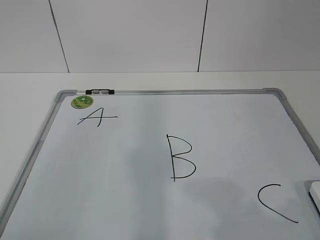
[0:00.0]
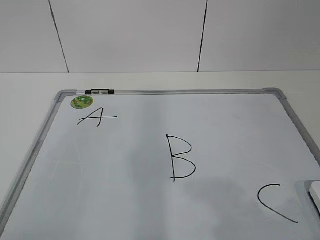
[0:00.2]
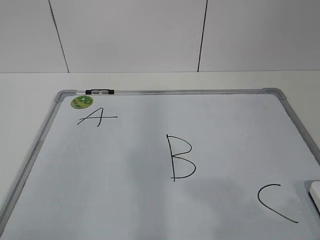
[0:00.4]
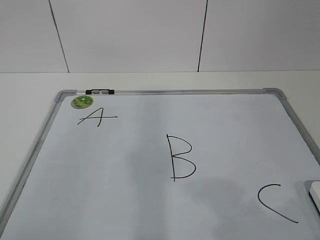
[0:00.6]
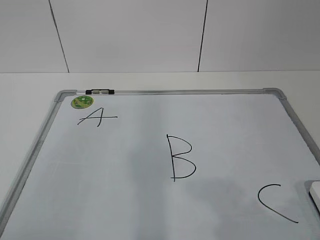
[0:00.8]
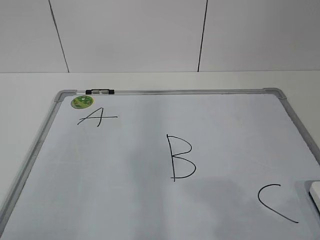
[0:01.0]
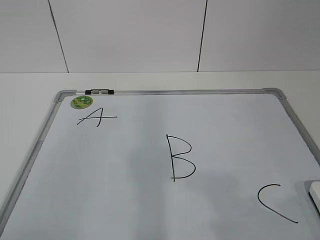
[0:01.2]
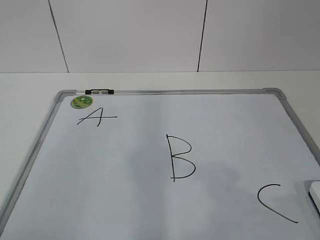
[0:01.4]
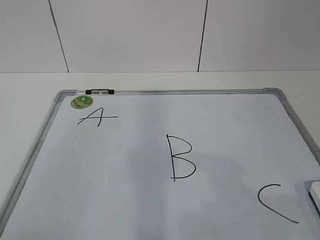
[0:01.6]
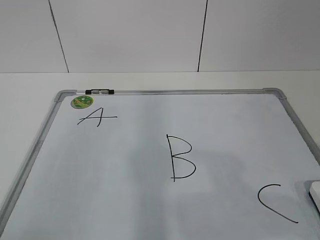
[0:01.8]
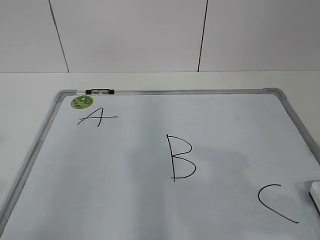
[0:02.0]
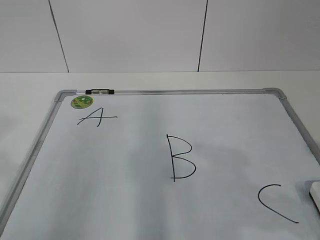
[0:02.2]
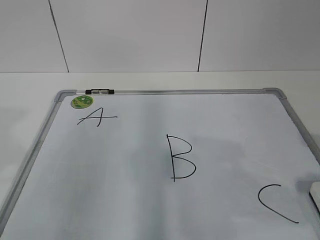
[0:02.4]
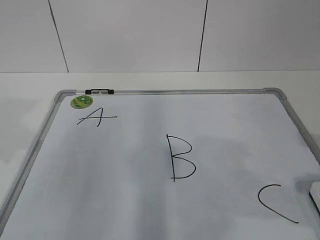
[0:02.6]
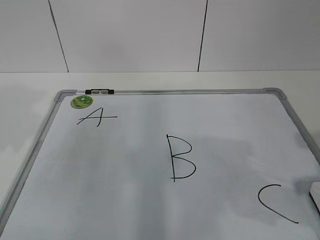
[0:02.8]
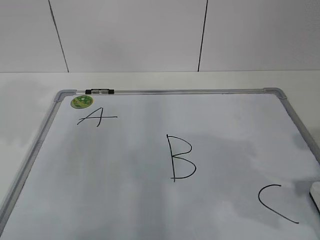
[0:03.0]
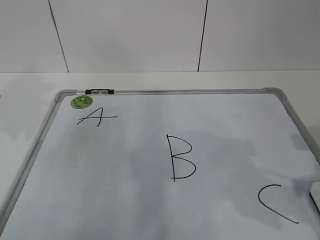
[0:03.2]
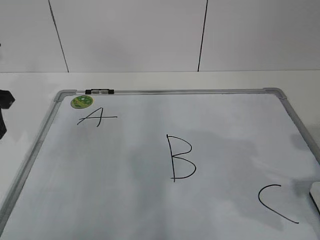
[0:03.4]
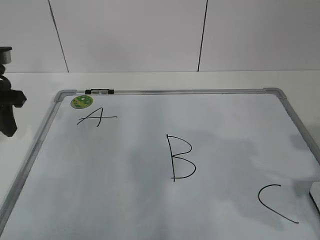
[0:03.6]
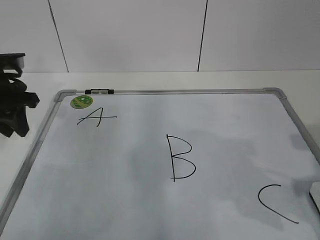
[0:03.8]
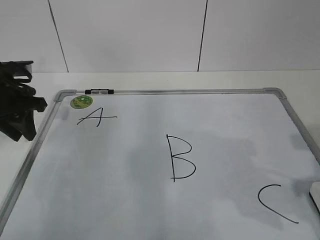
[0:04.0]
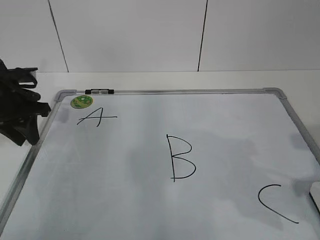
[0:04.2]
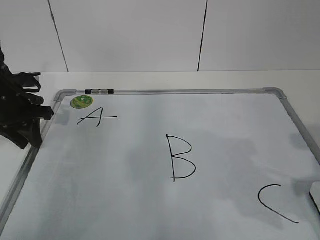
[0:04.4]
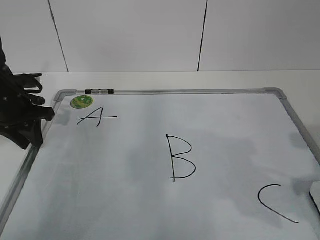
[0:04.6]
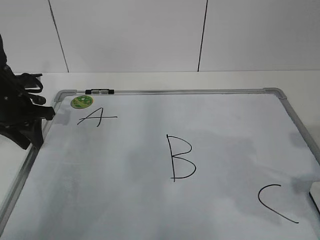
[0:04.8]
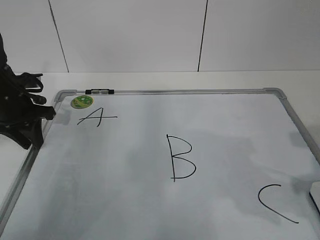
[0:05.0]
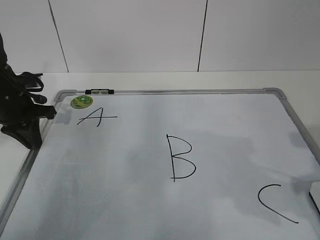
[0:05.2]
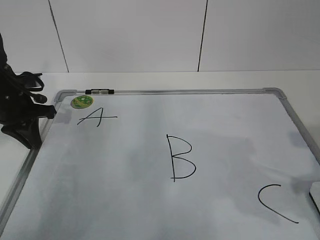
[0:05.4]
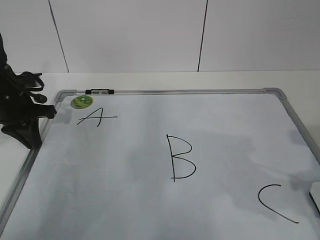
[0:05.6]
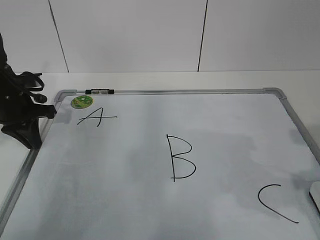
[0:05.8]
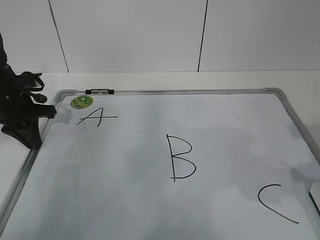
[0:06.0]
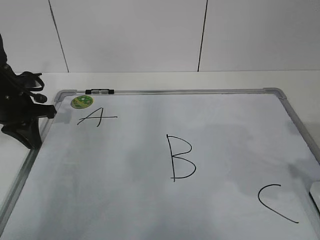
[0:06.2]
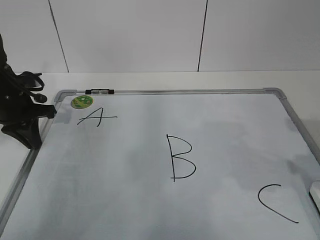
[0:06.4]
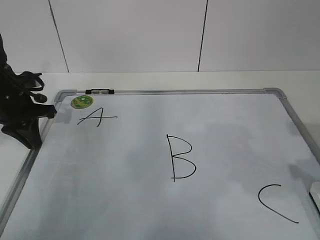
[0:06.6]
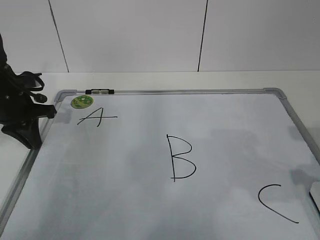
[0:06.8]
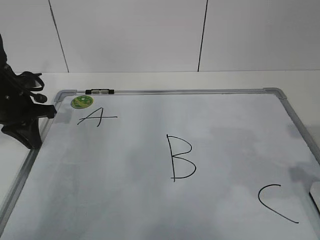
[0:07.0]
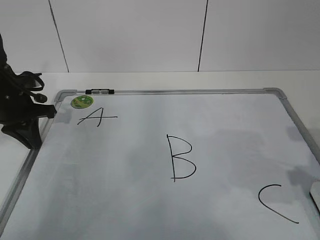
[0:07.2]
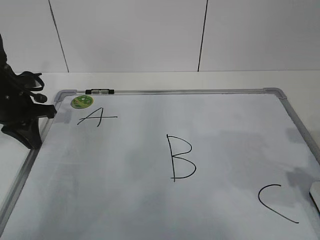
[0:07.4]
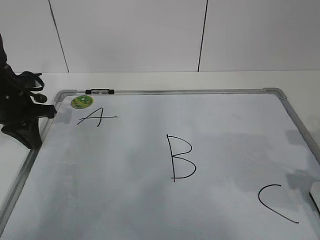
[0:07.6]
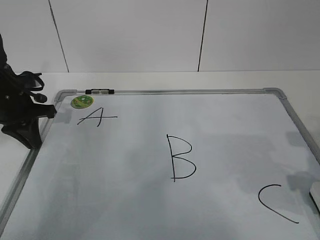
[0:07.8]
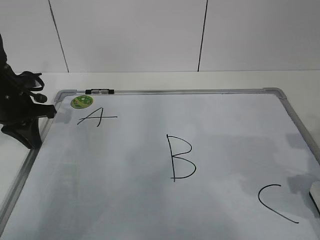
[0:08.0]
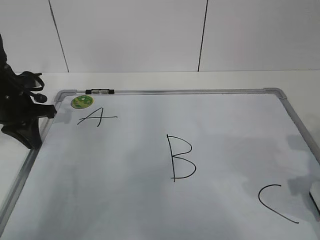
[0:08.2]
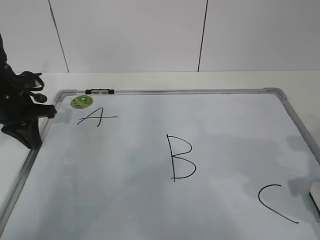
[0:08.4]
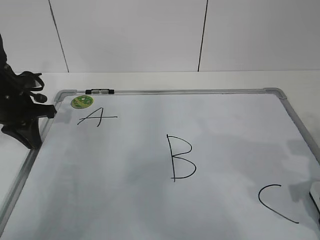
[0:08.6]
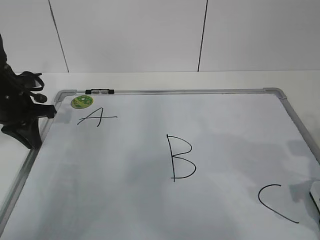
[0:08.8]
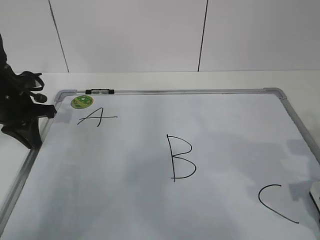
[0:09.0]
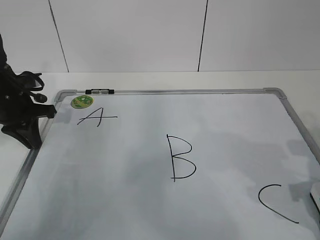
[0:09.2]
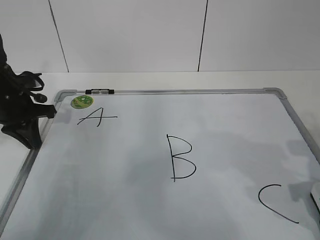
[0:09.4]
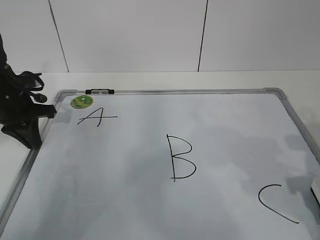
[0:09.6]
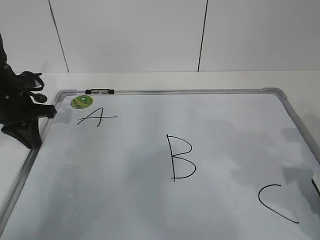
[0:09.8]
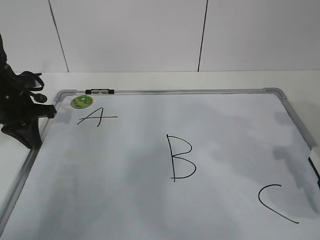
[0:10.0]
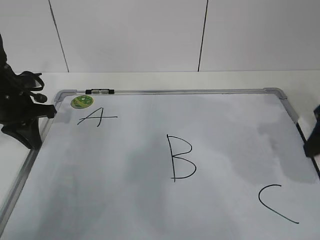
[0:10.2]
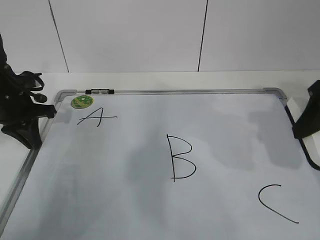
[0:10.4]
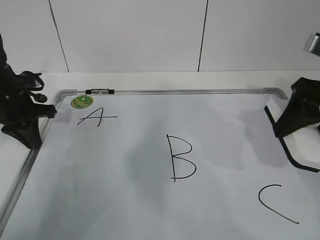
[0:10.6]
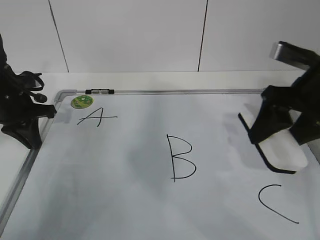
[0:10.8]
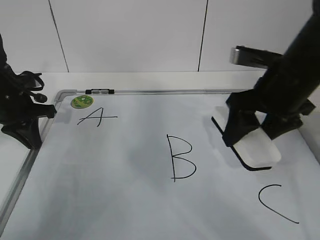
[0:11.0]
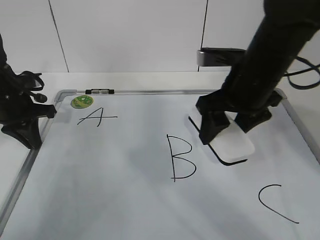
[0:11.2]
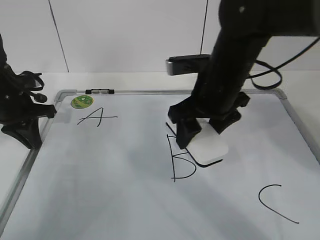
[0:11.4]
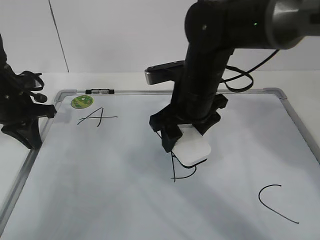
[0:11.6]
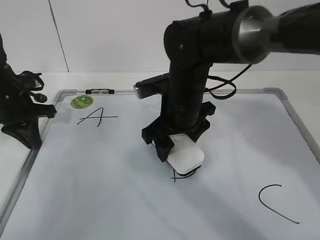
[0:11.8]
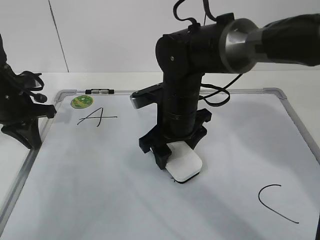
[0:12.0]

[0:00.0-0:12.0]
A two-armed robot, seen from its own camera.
Task of the whole recording: pick up the eraser on the blackboard and erase the letter "B".
Step, 0:00.0 to 0:04.2: Hold the drawing board steady with your left hand.
0:01.6 to 0:03.0: The left gripper heads forward, covering about 25 cm, while the right gripper travels forward by roughly 10 cm.
0:03.0 to 0:04.4: The left gripper goes some 20 cm forward and downward.
0:04.4 to 0:06.0: The left gripper closes up.
0:07.6 to 0:09.0: The grippers move only a little.
0:09.0 to 0:10.4: The right gripper is displaced upward and forward by some 15 cm.
0:10.4 to 0:12.0: The right gripper is displaced to the left and downward by roughly 25 cm.

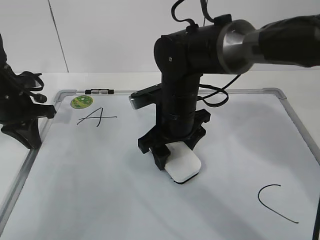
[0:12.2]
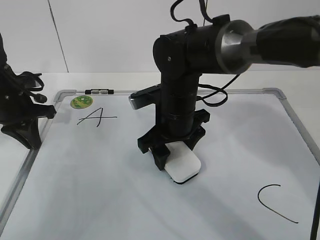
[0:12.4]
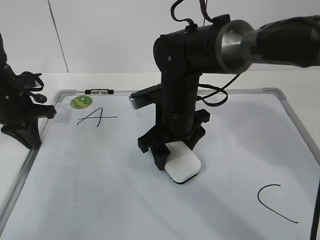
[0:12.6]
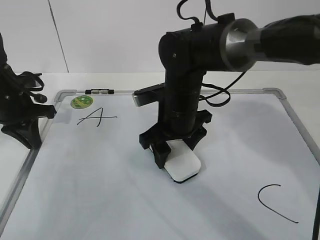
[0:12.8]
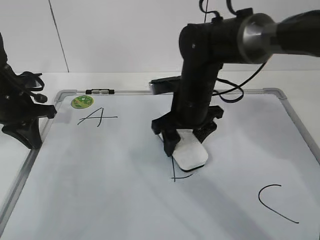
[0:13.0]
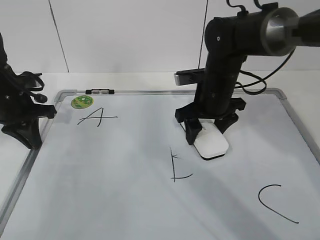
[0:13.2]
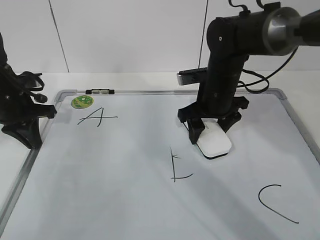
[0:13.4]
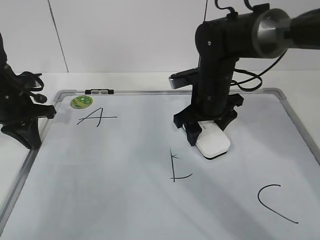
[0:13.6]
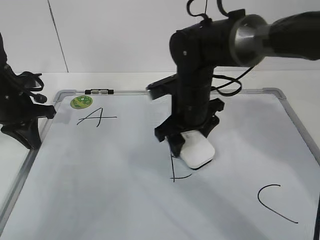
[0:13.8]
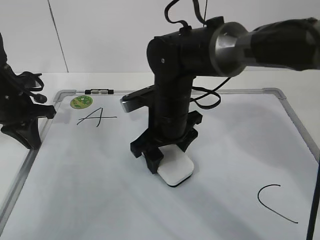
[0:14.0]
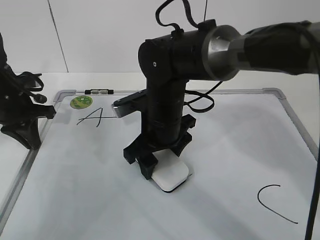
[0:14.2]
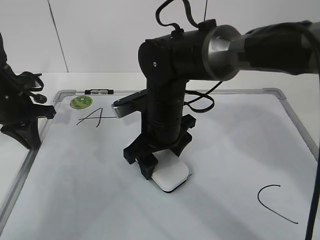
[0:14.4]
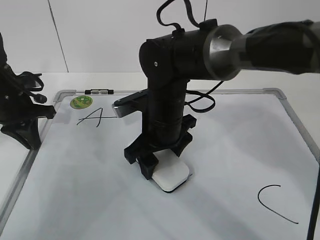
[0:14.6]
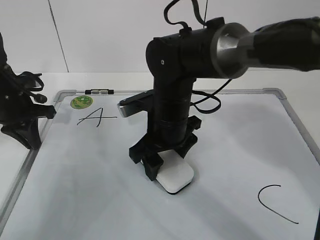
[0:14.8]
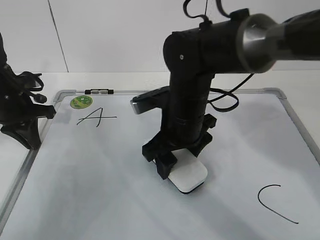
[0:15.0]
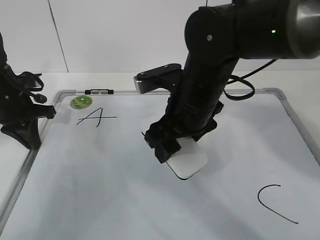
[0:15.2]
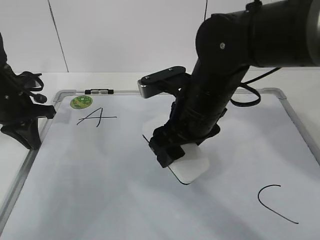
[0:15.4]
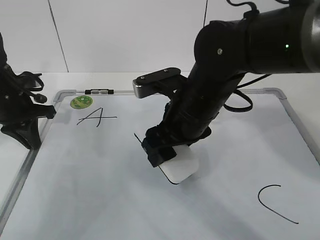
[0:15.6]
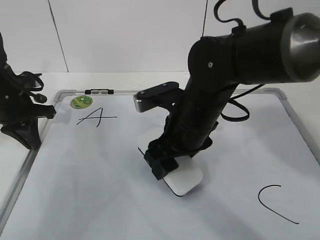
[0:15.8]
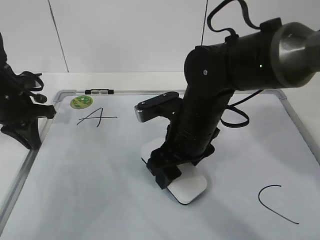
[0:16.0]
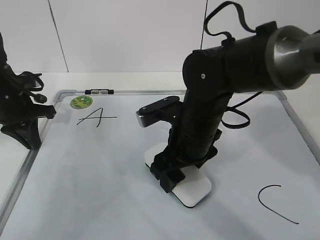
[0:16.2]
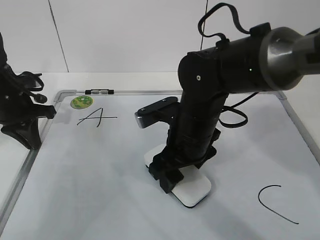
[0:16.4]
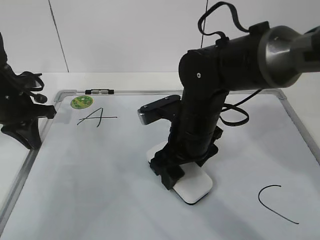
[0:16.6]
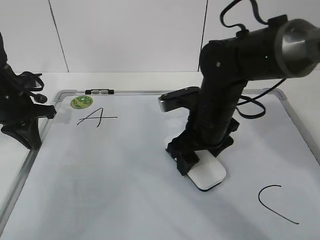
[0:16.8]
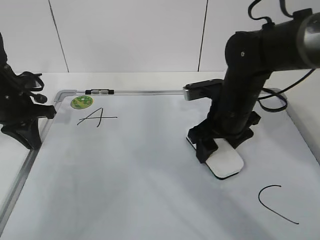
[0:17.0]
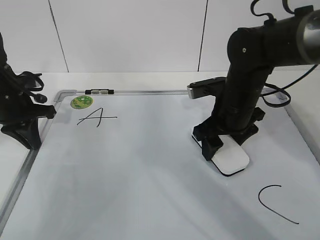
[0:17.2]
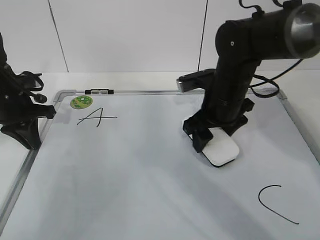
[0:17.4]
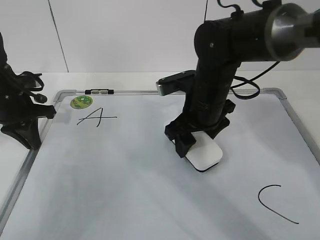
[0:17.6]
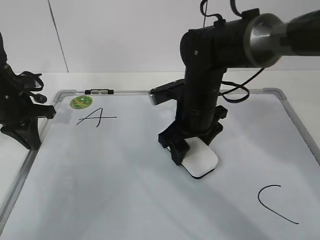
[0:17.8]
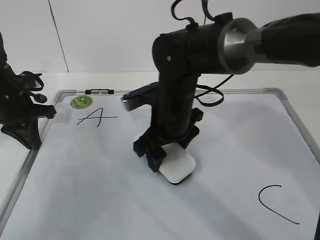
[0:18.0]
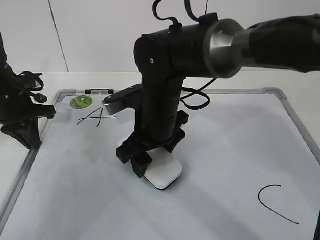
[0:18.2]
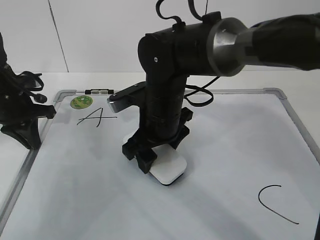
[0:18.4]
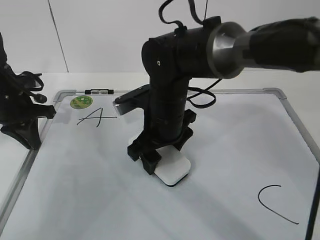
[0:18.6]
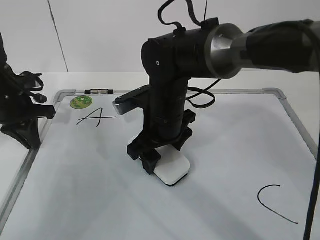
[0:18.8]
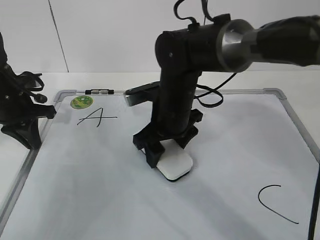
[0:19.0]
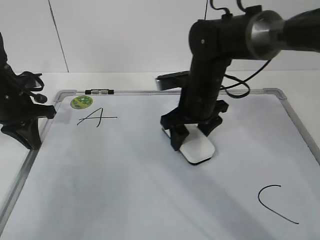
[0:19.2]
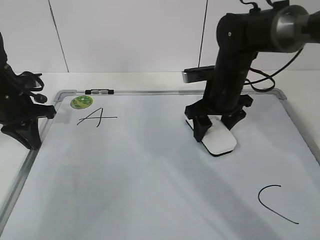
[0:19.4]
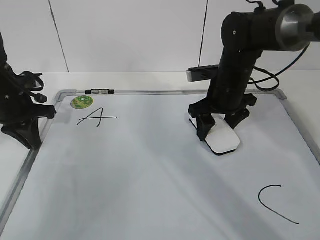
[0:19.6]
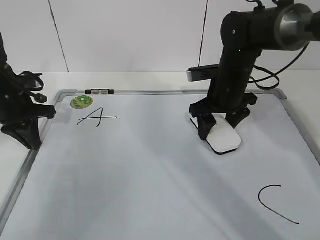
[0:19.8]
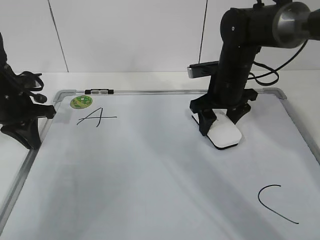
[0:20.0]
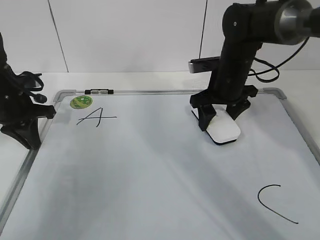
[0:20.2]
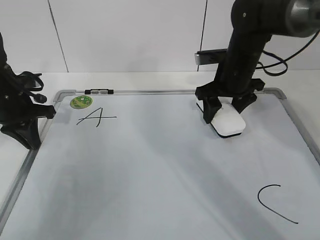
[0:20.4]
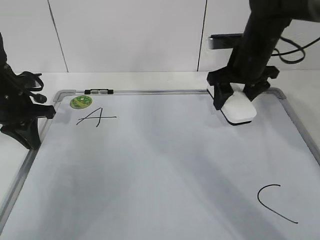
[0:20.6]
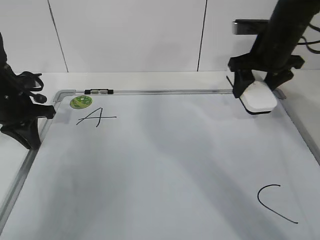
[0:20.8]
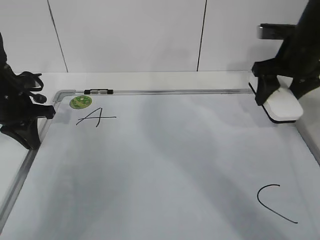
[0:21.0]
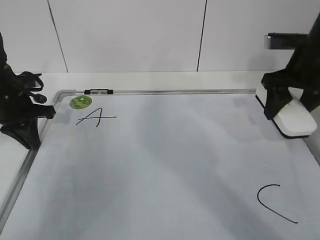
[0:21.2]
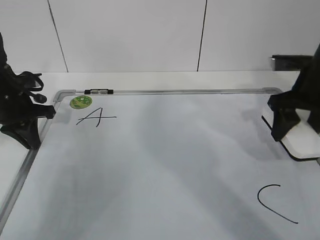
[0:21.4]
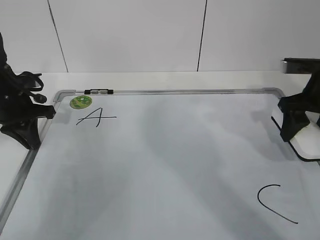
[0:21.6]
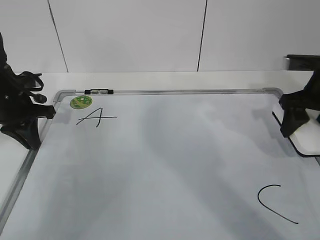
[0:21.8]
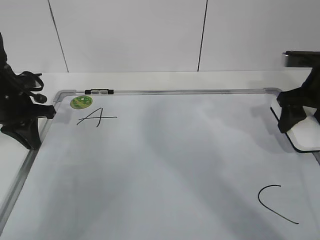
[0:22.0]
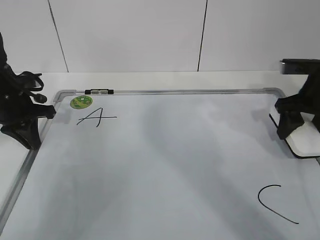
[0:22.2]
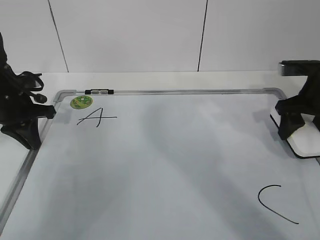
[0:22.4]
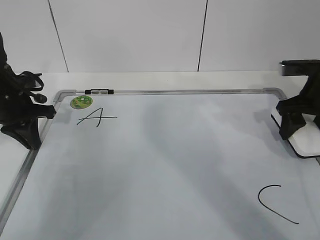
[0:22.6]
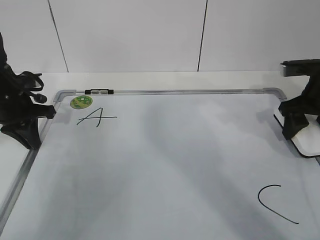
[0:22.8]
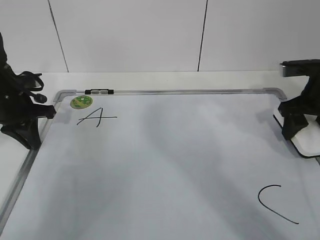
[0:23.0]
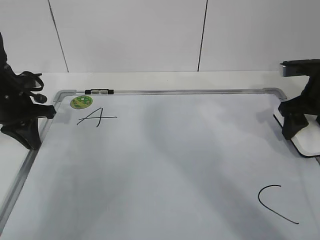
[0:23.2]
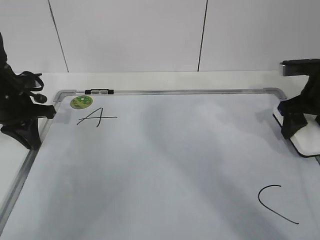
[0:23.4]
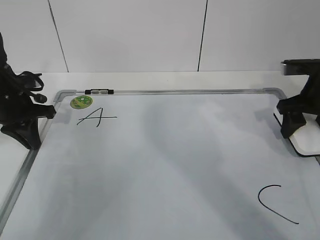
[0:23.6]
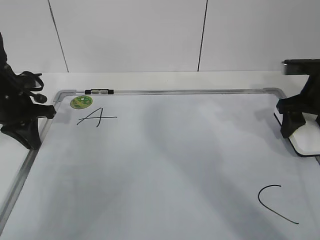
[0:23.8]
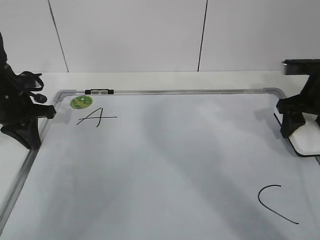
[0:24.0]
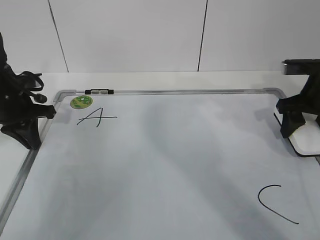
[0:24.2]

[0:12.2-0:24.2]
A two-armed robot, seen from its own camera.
Task of the whole recording: pick up the eraser on the blackboard and erase the letter "B".
Step, 0:12.2 to 0:16.8: Erase the letter B with your right hand.
Step, 0:17.0 to 0:22.2: Put down the eraser with your right hand.
0:13.8 to 0:15.2: The right gripper heads backward and upward, covering roughly 10 cm.
0:15.2 to 0:16.6: The right gripper heads downward, covering about 5 cm.
0:16.6 to 0:18.2: The right gripper heads to the left, covering approximately 5 cm.
0:18.2 to 0:19.8: The right gripper is displaced to the right and forward by approximately 15 cm.
0:19.8 to 0:21.2: The right gripper shifts some 15 cm to the right and upward.
0:21.2 to 0:22.6: The right gripper shifts approximately 5 cm downward.
0:22.6 to 0:24.2: Both grippers stay about where they are.
